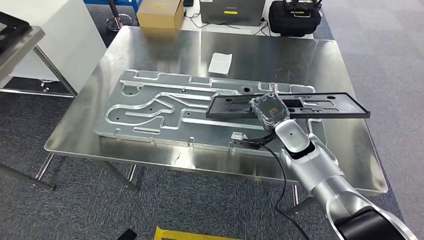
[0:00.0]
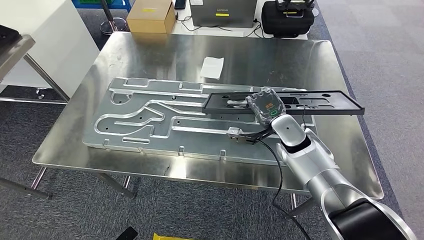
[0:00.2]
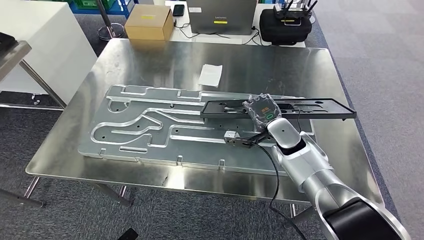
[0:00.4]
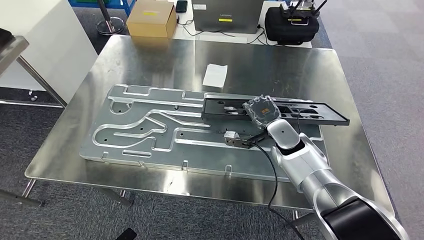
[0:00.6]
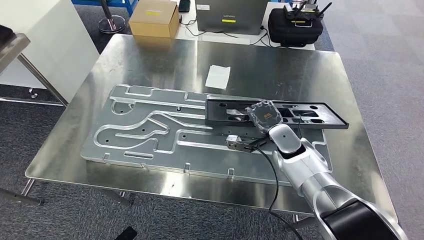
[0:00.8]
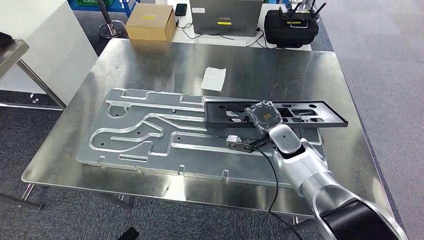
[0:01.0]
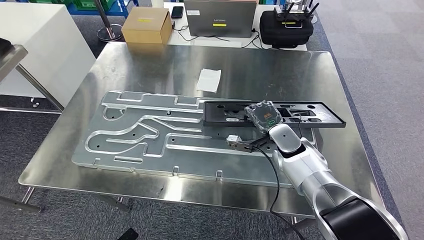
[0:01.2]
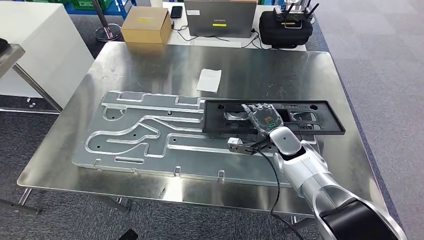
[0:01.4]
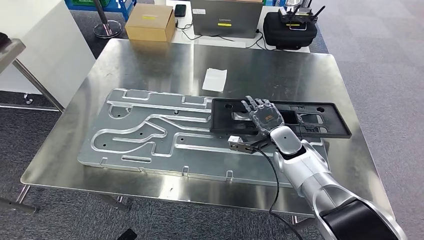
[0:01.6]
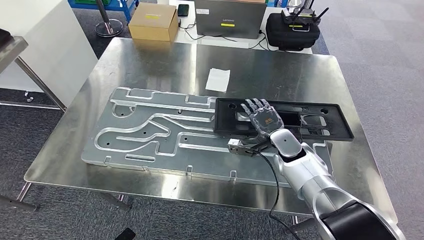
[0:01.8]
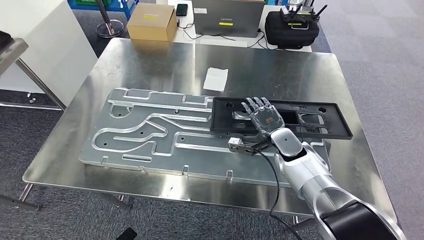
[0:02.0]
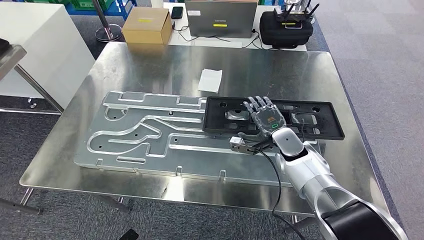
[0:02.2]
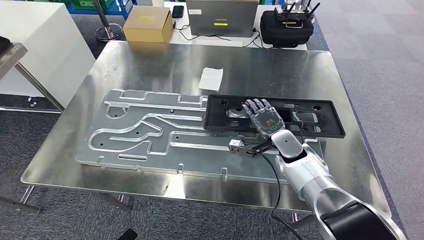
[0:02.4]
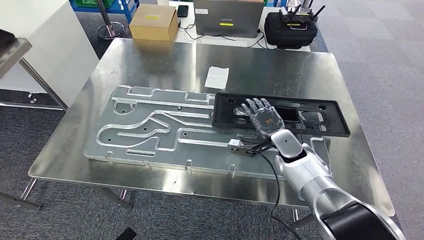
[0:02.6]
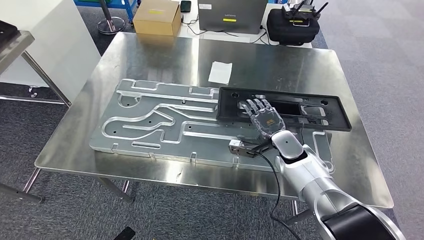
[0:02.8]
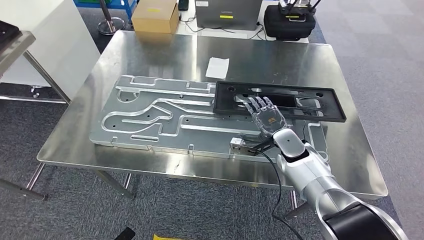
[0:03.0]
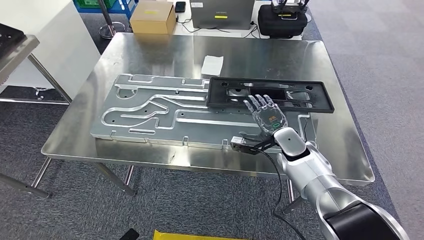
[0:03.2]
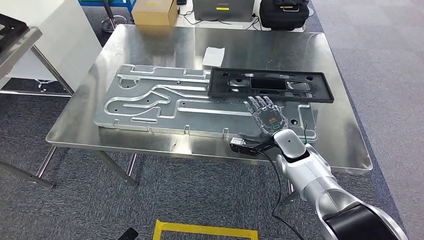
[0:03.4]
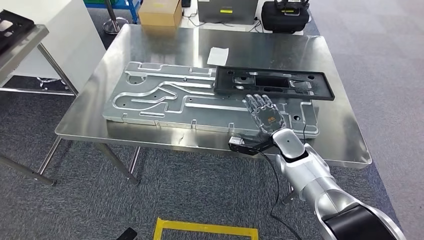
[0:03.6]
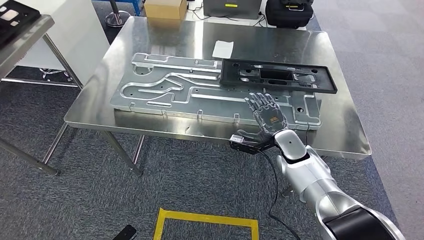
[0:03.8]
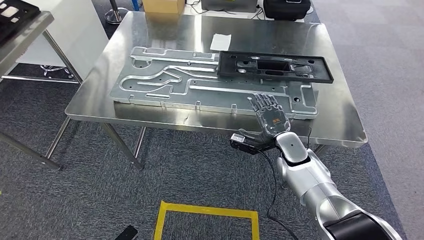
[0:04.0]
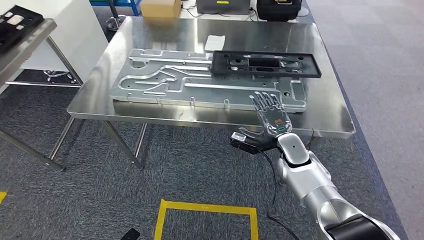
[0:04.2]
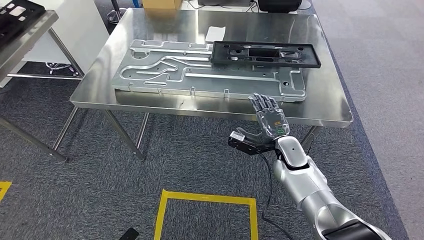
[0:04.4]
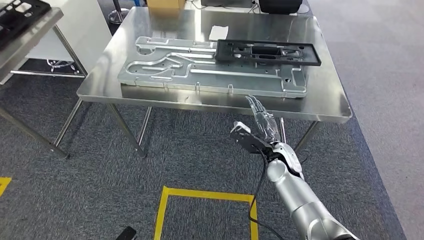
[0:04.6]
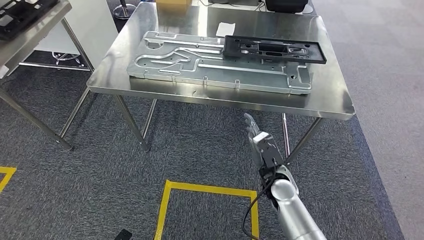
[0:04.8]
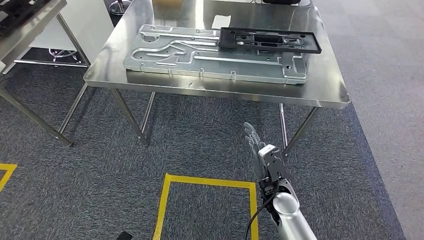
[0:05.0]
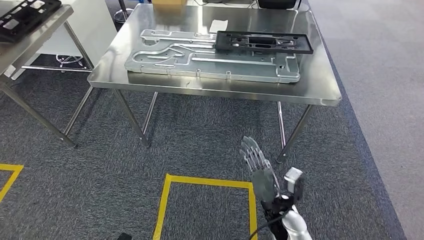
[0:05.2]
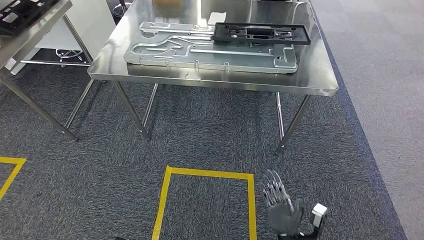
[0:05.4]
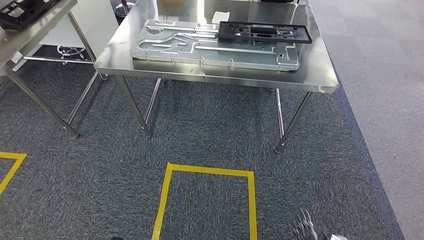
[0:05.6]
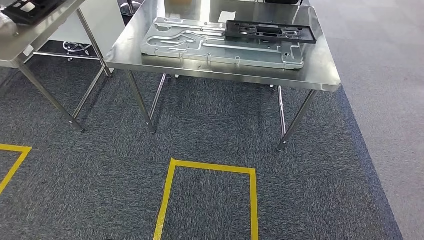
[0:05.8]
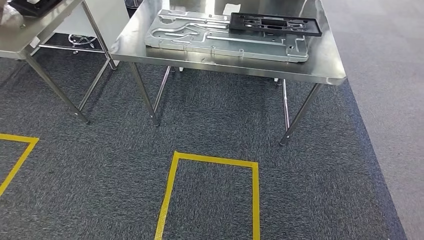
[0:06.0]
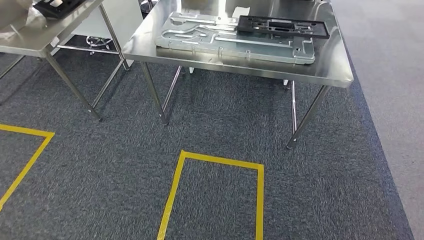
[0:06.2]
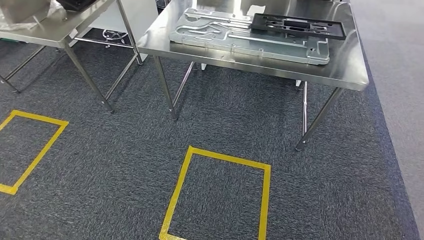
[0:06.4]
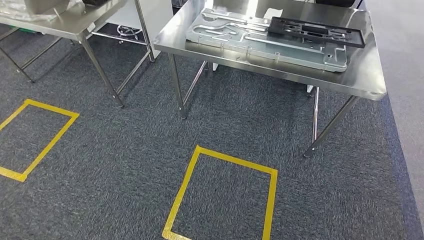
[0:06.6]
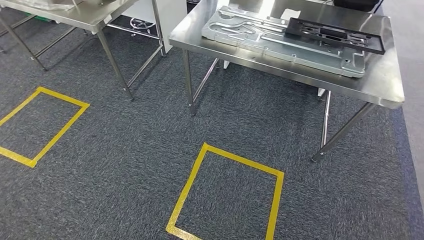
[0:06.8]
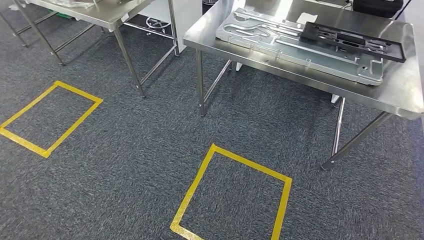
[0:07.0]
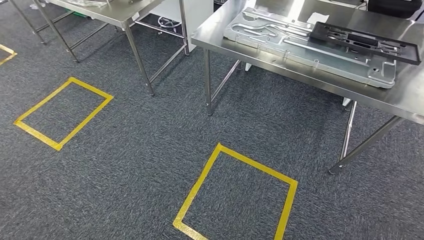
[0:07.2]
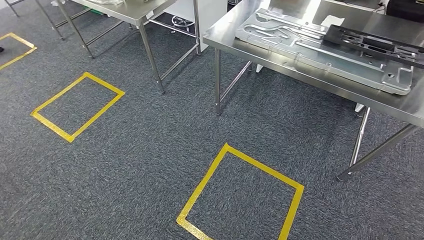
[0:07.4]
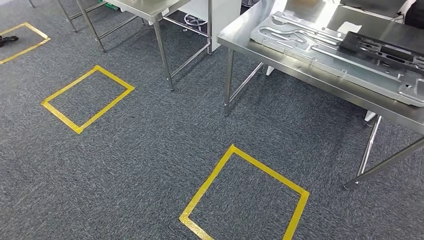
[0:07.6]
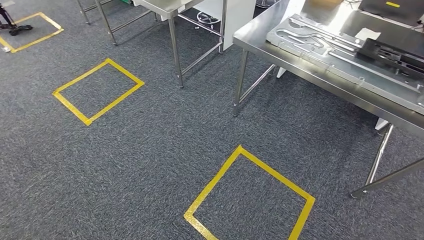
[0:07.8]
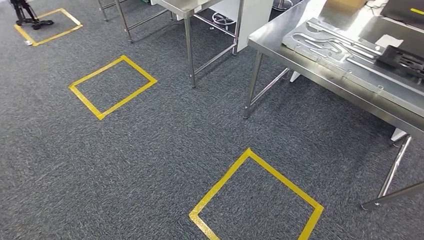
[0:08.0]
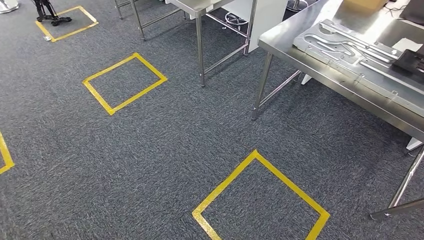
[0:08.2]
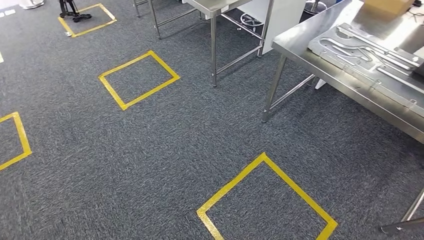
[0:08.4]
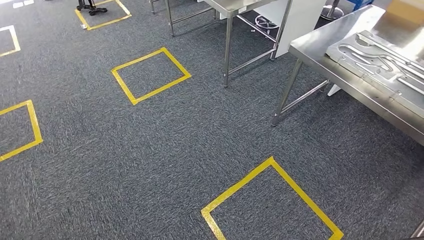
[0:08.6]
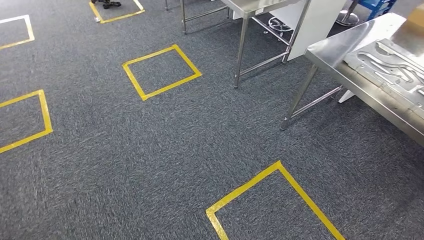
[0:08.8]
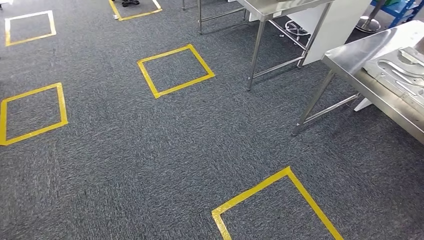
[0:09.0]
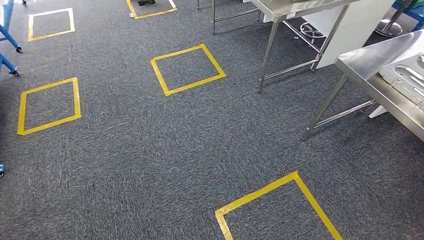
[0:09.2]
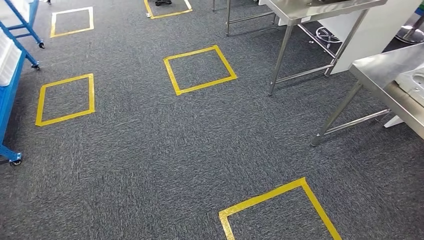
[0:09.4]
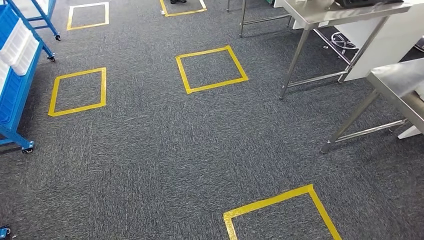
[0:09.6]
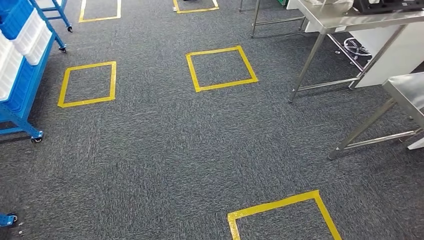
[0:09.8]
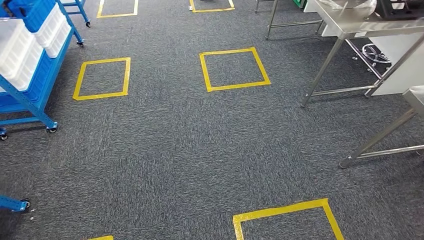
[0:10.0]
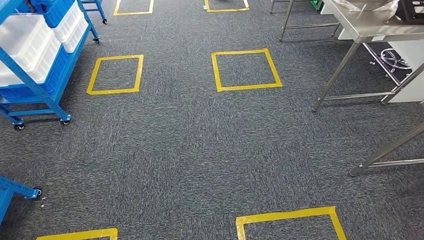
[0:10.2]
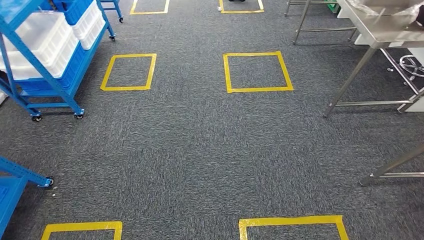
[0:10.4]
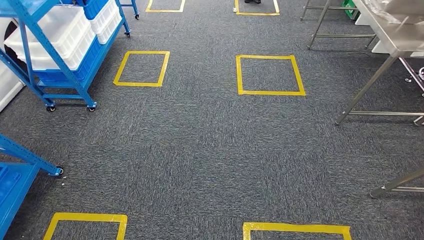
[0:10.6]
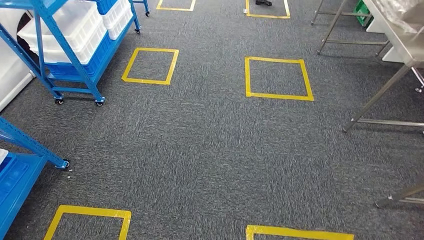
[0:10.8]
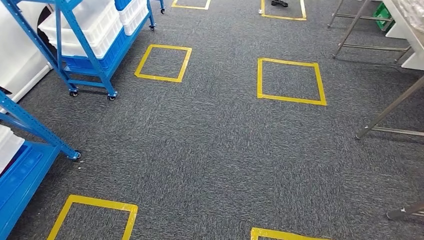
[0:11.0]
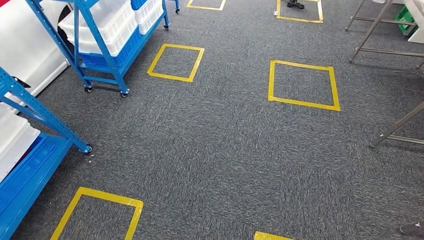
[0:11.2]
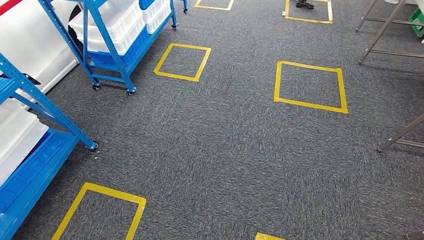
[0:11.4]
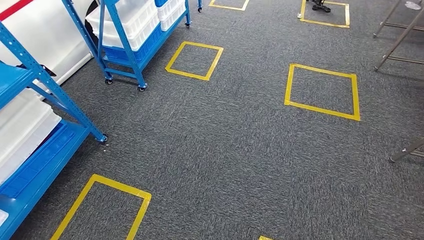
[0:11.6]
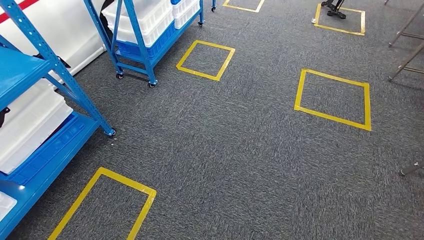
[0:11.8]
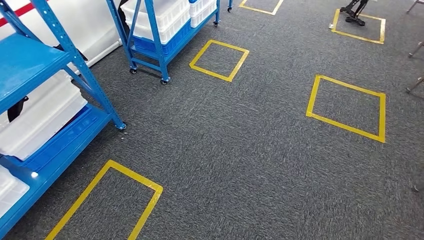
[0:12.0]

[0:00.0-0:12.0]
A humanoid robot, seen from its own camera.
Step, 0:00.0 to 0:07.0: Insert the large material into the corresponding slot on the workbench.

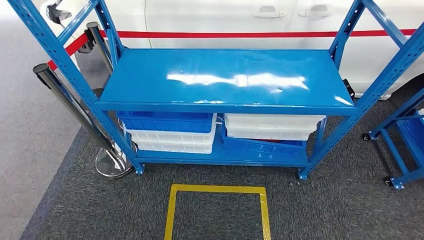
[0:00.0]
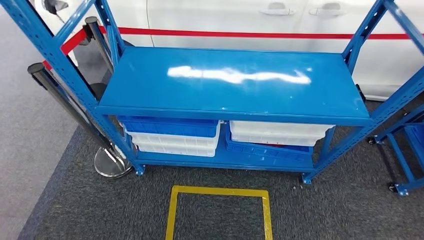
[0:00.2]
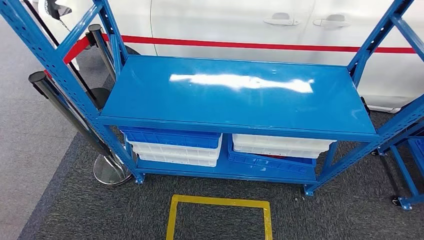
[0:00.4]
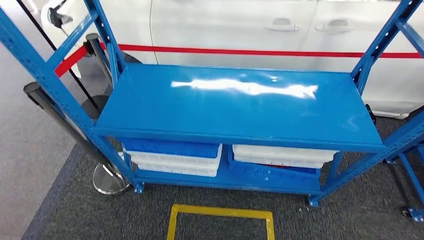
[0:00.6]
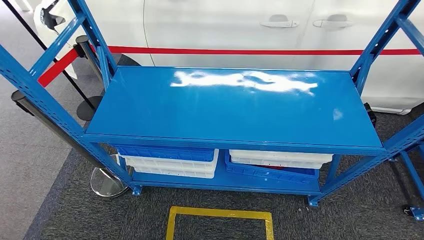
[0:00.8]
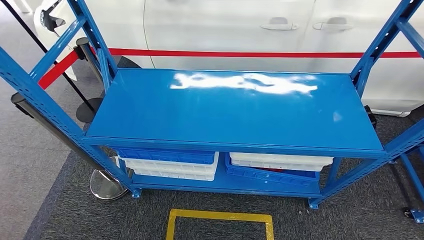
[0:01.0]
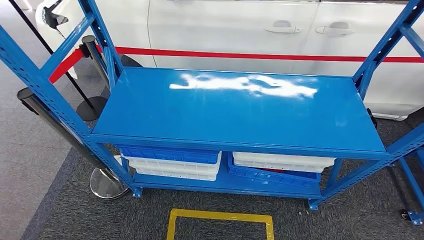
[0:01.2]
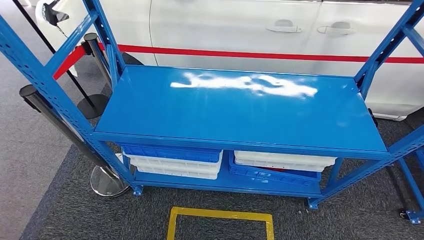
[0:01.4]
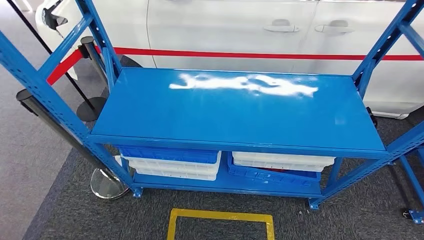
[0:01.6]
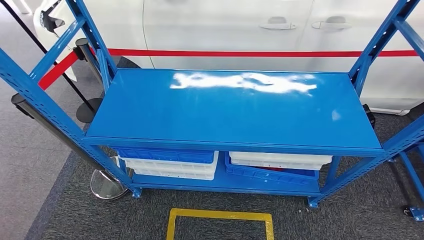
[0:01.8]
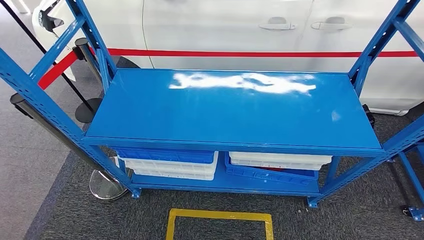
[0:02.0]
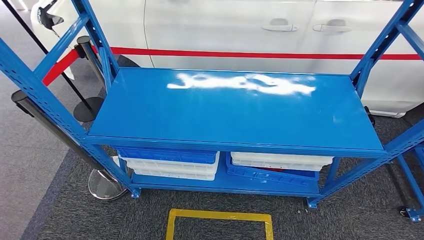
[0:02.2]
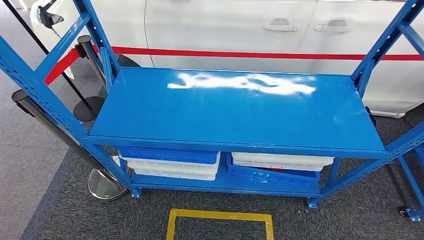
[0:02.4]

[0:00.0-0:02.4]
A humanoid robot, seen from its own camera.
Step, 0:00.0 to 0:02.4: Return to the initial position at the shelf.
0:01.2 to 0:02.4: Both hands stay put.

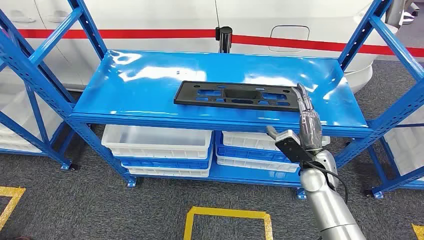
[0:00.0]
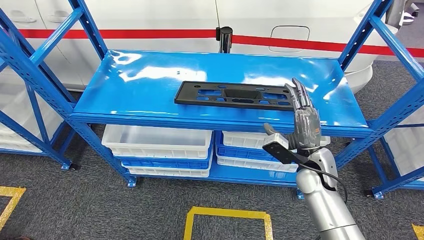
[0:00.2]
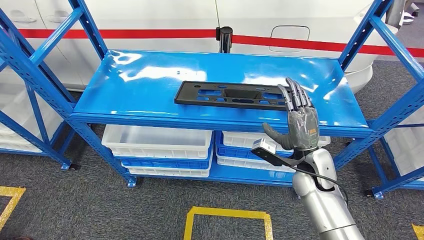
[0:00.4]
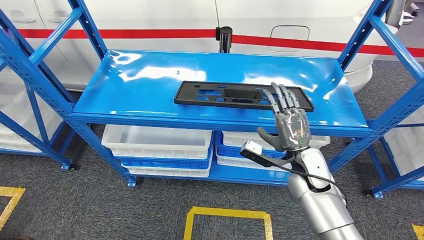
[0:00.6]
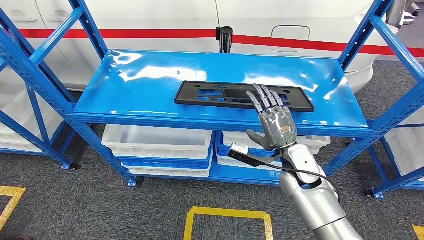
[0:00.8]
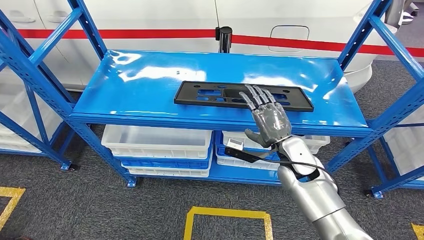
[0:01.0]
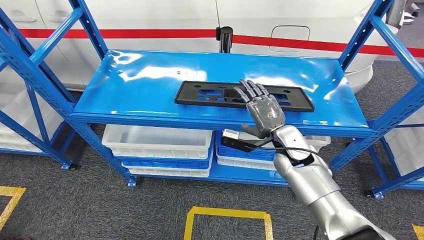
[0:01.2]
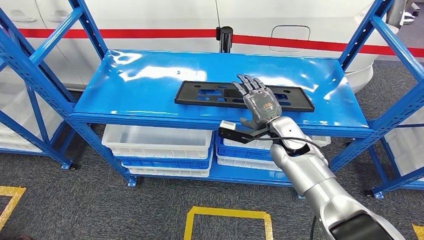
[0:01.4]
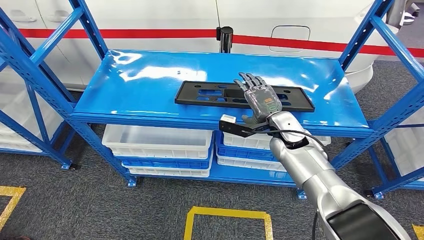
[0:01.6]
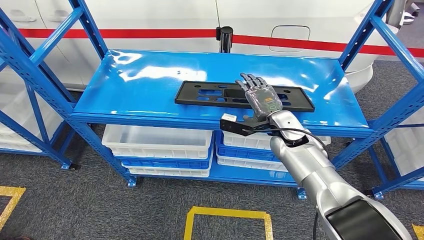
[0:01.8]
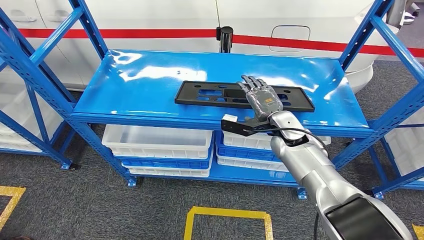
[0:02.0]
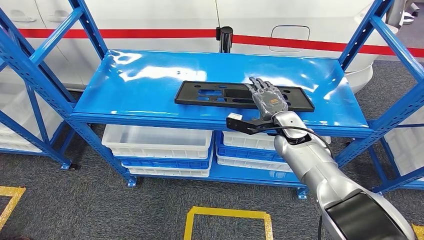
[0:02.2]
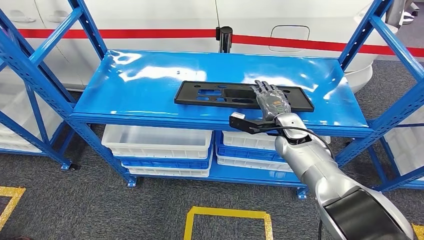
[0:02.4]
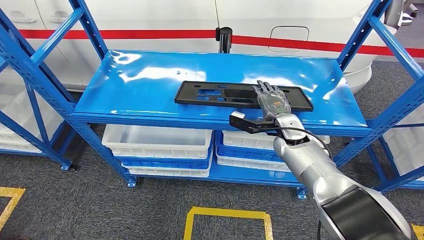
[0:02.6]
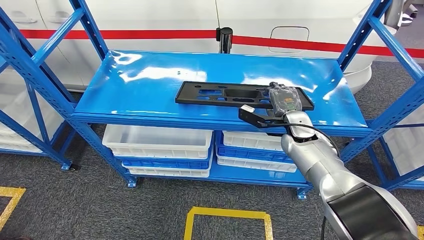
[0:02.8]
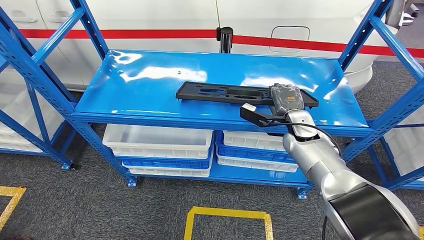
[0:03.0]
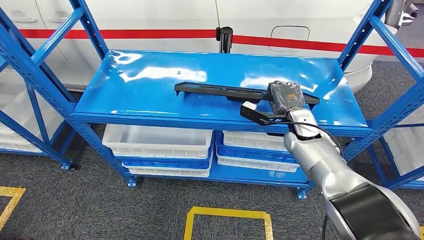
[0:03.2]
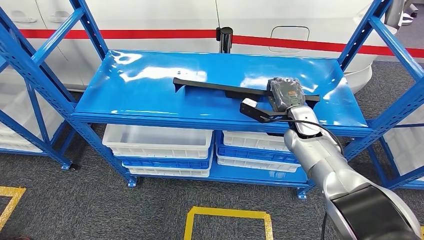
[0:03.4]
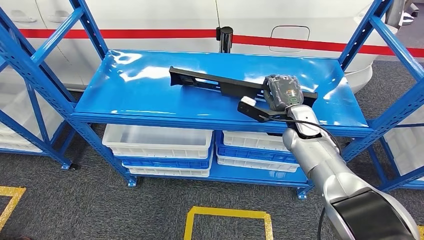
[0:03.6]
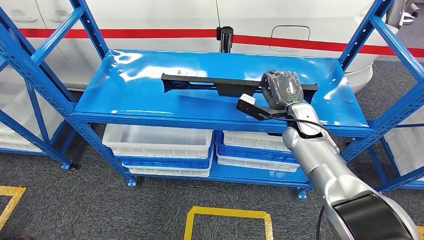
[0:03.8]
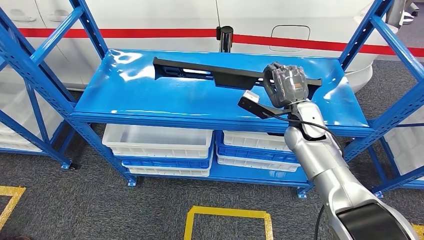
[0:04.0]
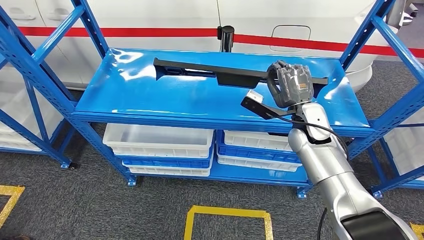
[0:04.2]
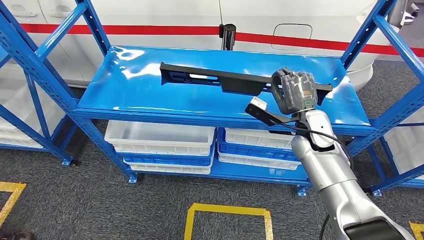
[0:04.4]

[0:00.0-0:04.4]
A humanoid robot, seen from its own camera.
0:01.4 to 0:03.0: The right hand moves to the right, some 5 cm.
